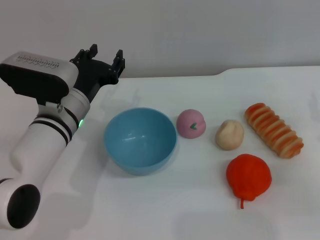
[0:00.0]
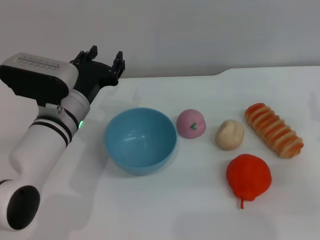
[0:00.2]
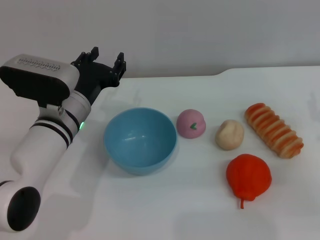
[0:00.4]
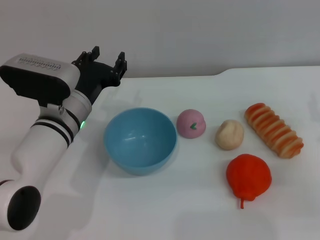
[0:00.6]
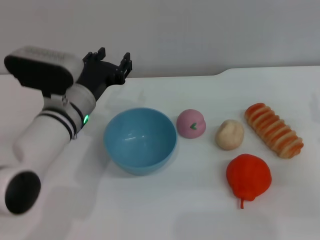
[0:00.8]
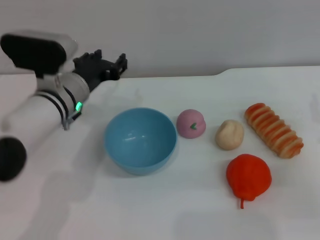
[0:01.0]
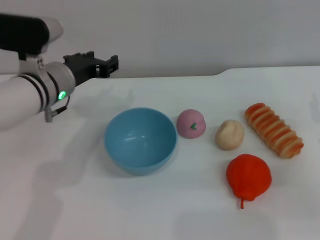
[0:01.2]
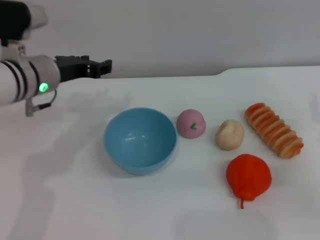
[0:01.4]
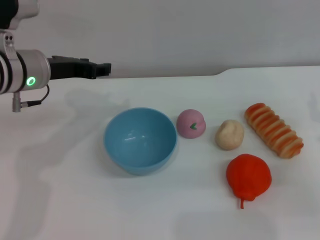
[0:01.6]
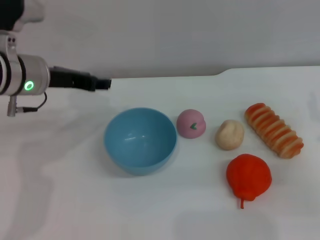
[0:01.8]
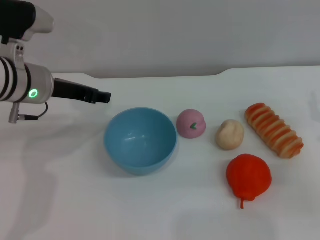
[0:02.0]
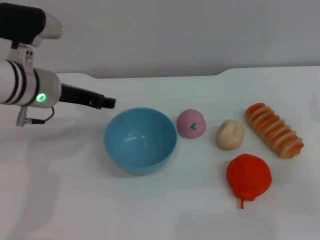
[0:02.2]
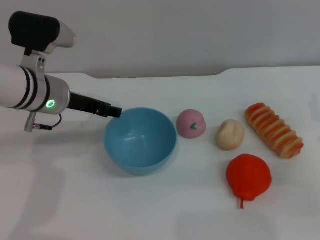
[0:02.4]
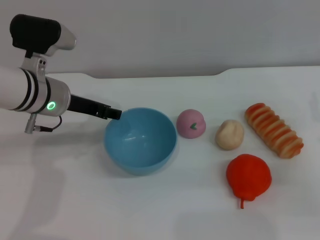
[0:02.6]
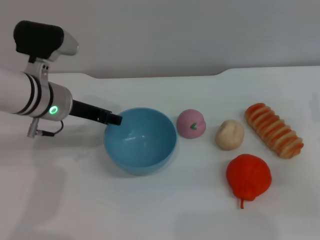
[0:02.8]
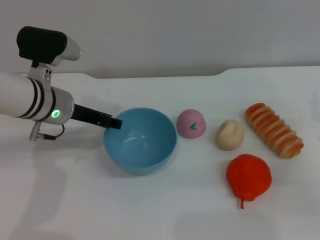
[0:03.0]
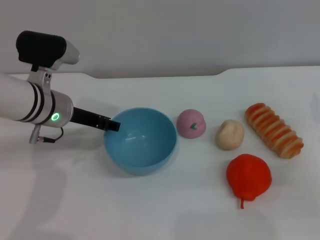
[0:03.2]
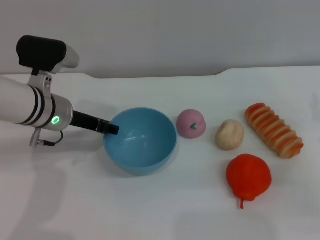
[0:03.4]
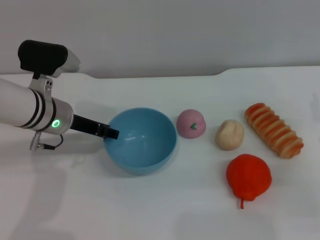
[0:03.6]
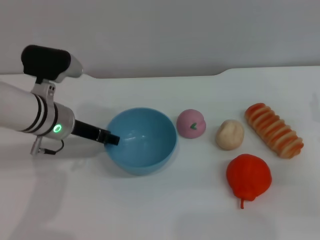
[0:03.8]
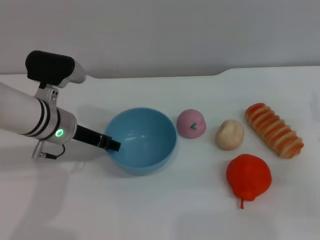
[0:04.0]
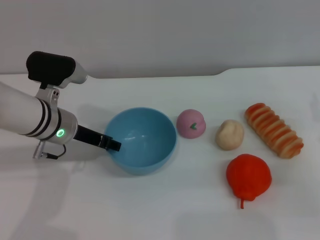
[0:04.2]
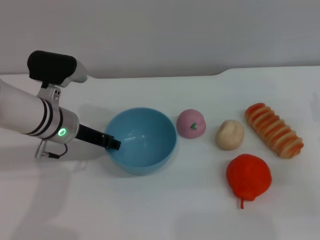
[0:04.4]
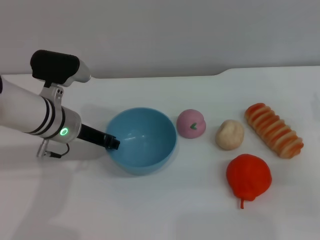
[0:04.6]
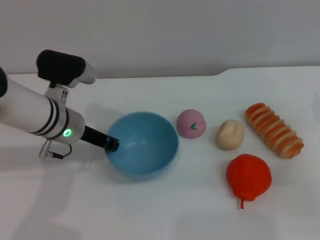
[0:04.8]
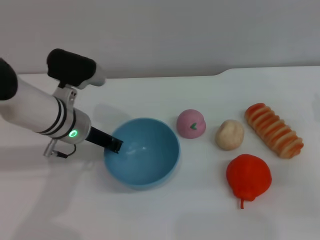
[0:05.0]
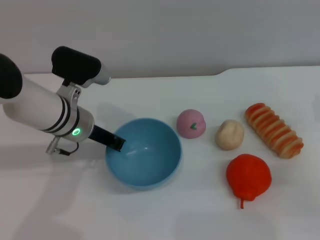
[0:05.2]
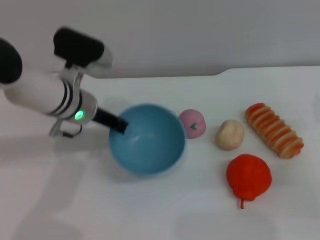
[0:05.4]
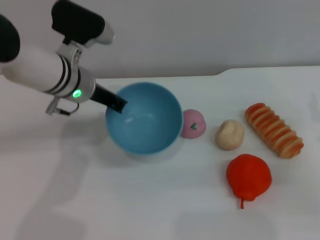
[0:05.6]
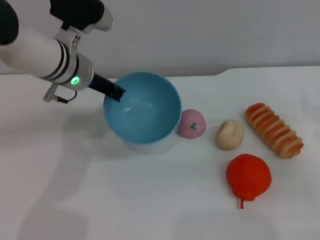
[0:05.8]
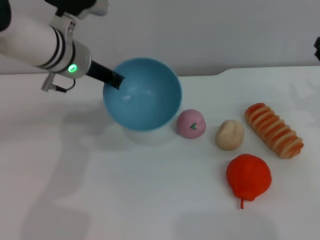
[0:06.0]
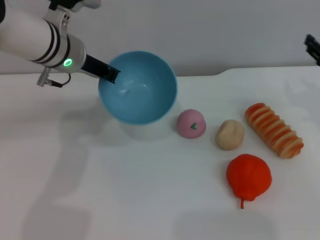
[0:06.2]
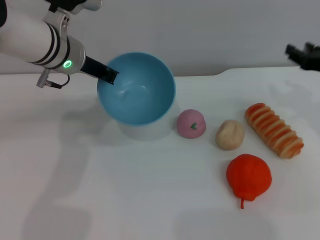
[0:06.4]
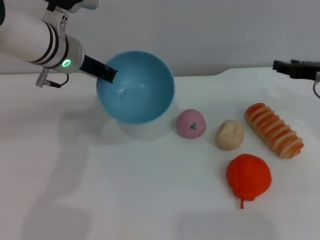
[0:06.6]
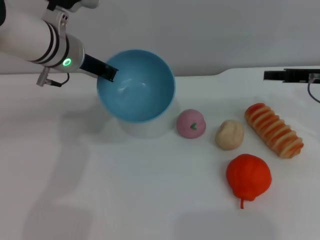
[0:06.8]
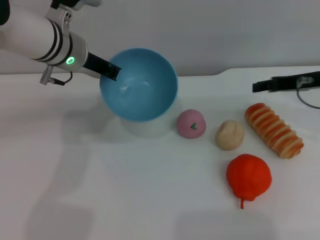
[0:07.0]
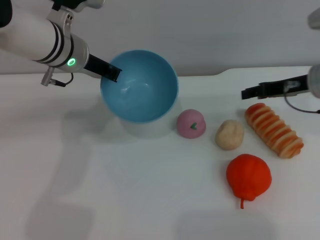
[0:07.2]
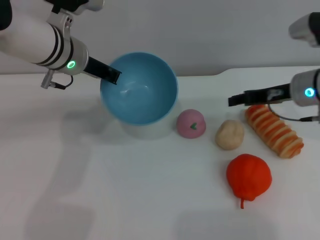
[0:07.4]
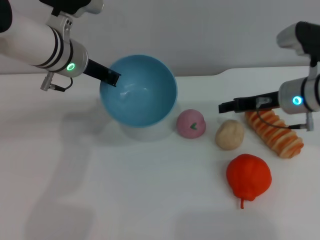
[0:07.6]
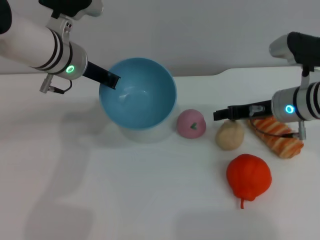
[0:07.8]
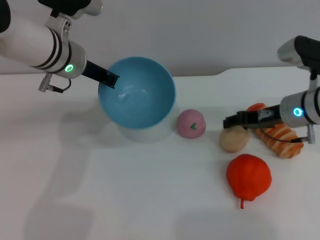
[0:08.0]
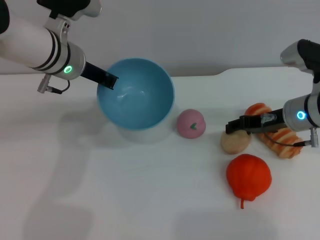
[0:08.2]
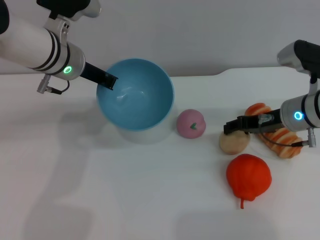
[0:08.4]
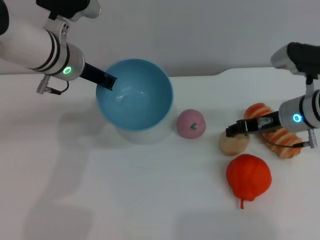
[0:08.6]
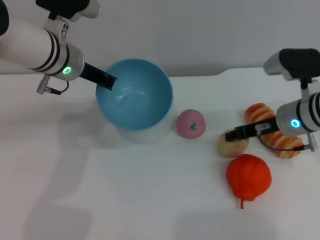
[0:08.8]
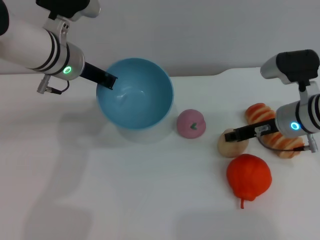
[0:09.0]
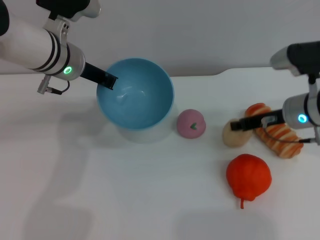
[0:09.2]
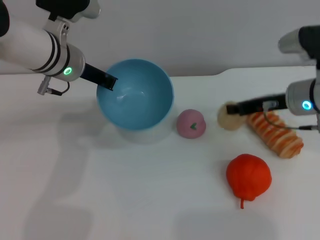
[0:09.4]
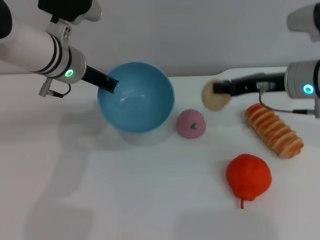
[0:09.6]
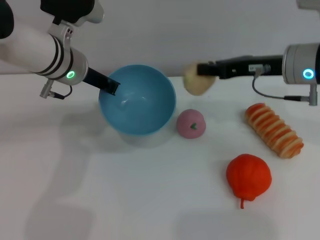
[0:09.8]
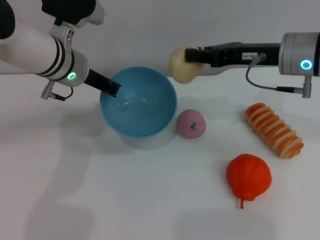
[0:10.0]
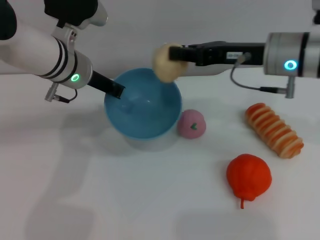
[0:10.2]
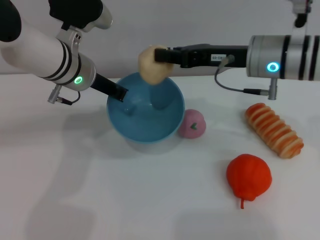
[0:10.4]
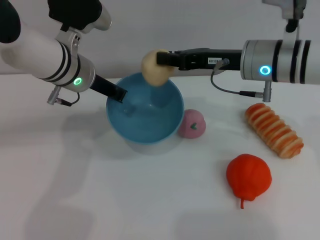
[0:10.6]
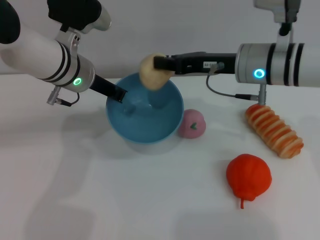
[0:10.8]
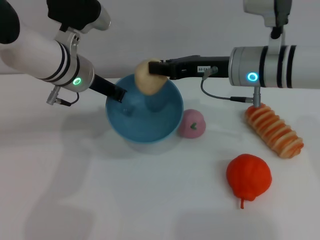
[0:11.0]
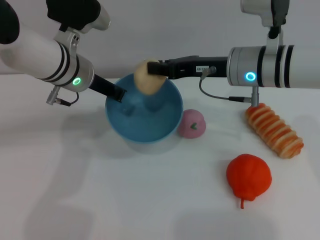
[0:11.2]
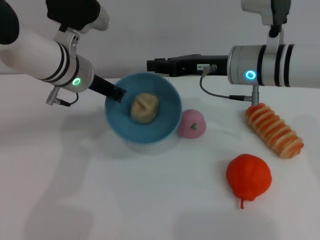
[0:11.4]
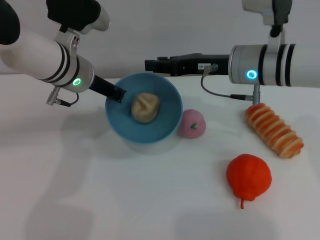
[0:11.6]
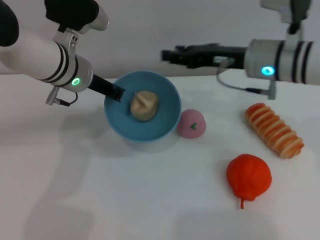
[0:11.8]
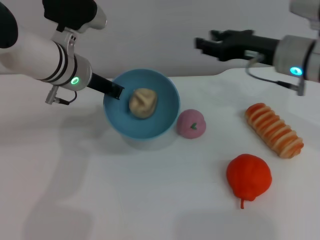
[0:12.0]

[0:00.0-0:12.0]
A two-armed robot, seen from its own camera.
Task of the whole recording: put the egg yolk pastry into the blue bowl and pour it out repeatedly.
Step, 0:00.0 to 0:06.0: Pick up the bowl with the left gripper.
Step, 0:06.2 to 0:09.6: Pick up the egg yolk pastry with the right gripper.
Step, 0:09.8 to 0:11.6: Place the egg yolk pastry into the bowl.
0:00.0 to 0:01.6: The left gripper travels upward and to the left by roughly 10 cm.
0:01.6 to 0:03.0: The left gripper ends up some 5 cm from where it was.
0:03.0 to 0:04.4: The grippers stay close to where they were, moving slightly.
0:04.4 to 0:06.0: The right gripper moves roughly 5 cm. The left gripper moves upward, some 10 cm, and closes its fingers.
0:06.0 to 0:07.6: The right gripper heads to the left and forward, covering approximately 10 cm.
0:07.6 to 0:09.0: The right gripper closes.
0:09.0 to 0:10.4: The right gripper goes approximately 10 cm upward and to the left, and closes its fingers.
0:10.4 to 0:12.0: The right gripper heads to the right, covering roughly 5 cm, and opens up.

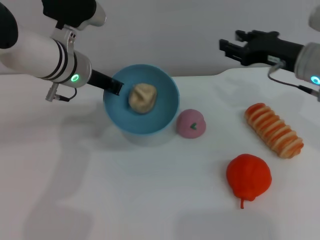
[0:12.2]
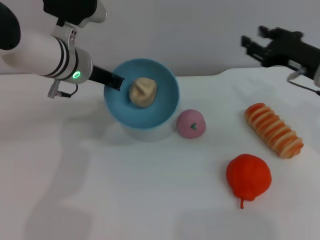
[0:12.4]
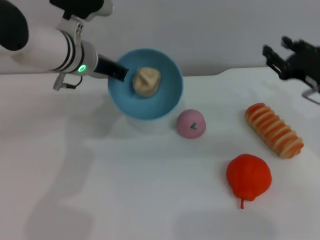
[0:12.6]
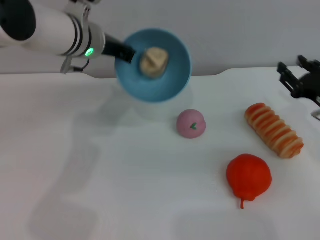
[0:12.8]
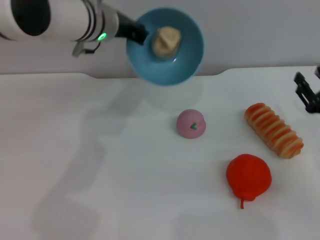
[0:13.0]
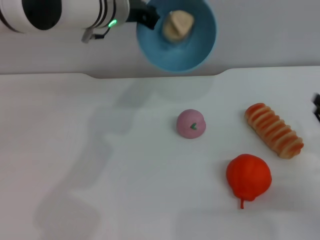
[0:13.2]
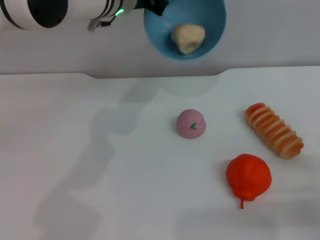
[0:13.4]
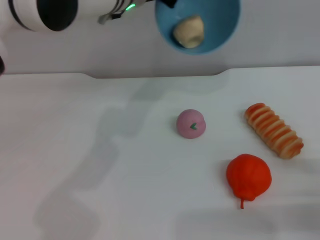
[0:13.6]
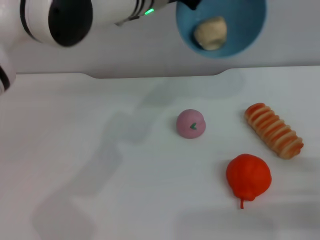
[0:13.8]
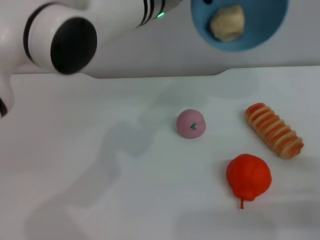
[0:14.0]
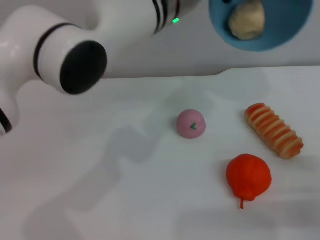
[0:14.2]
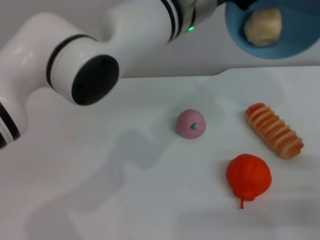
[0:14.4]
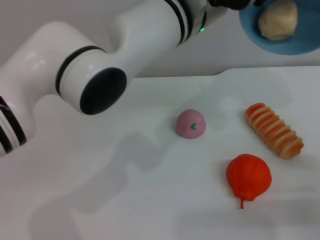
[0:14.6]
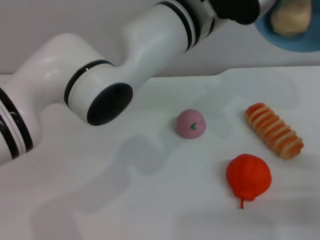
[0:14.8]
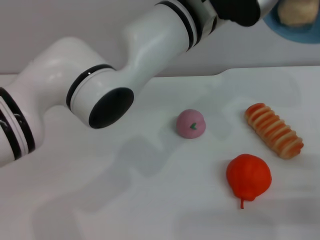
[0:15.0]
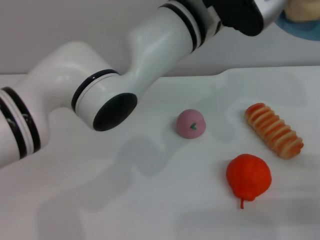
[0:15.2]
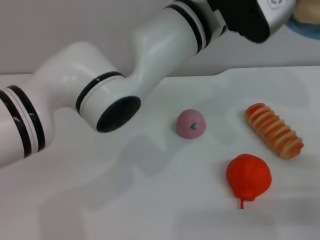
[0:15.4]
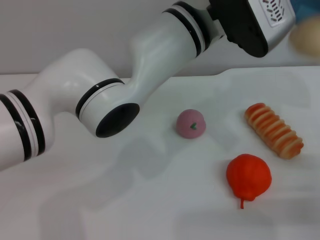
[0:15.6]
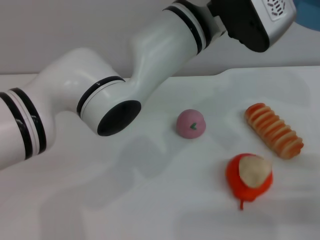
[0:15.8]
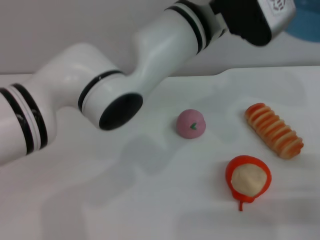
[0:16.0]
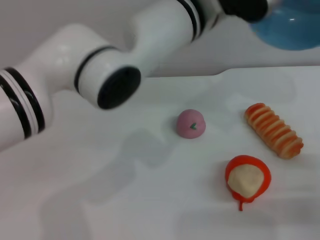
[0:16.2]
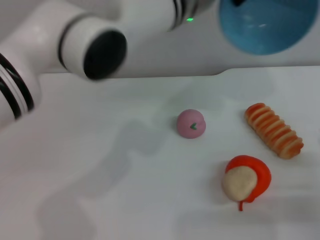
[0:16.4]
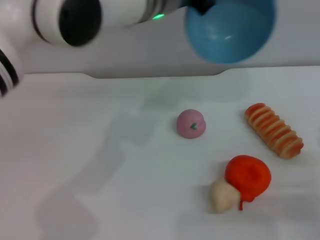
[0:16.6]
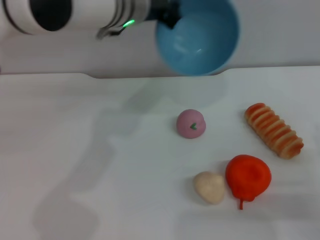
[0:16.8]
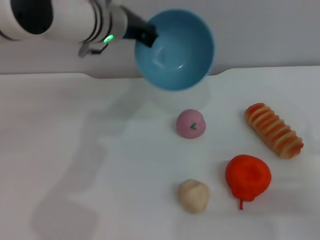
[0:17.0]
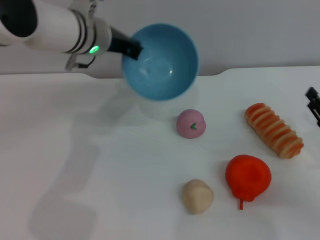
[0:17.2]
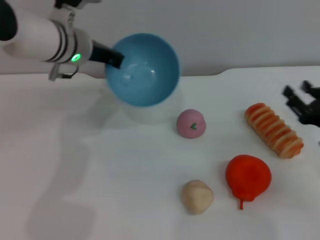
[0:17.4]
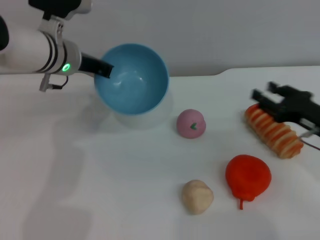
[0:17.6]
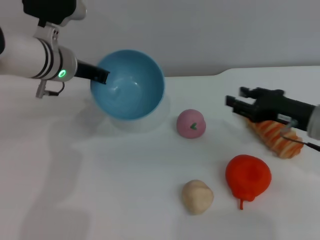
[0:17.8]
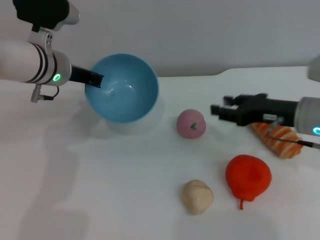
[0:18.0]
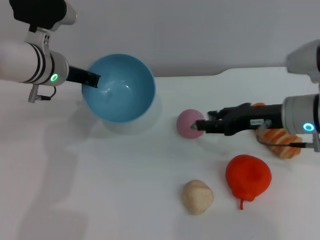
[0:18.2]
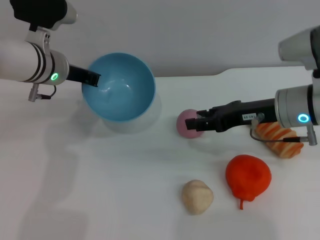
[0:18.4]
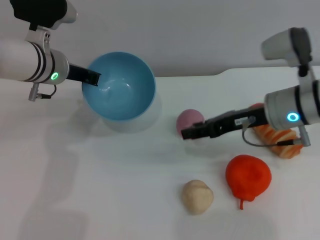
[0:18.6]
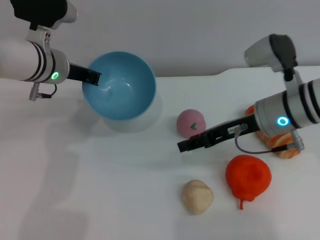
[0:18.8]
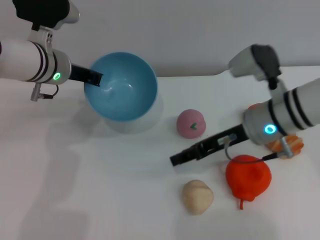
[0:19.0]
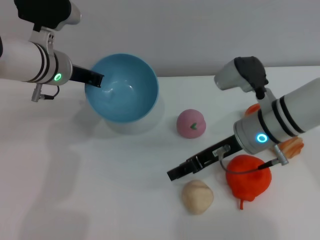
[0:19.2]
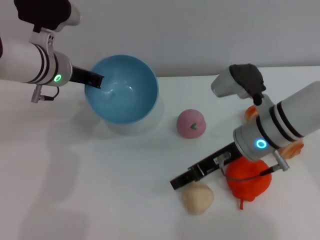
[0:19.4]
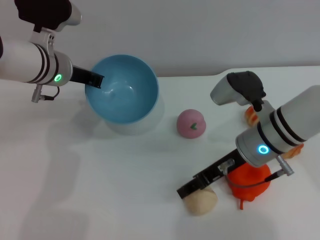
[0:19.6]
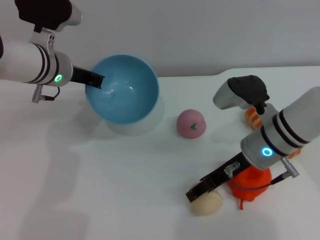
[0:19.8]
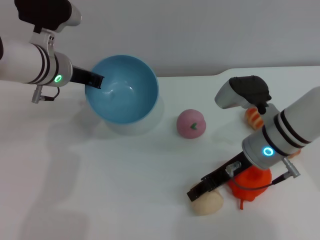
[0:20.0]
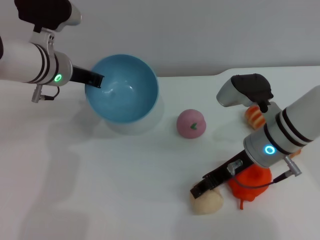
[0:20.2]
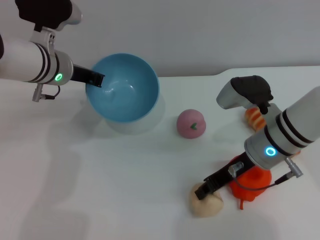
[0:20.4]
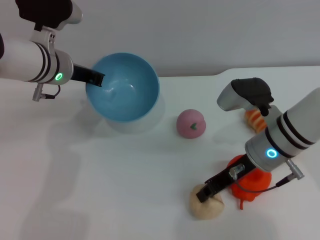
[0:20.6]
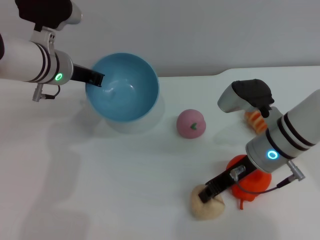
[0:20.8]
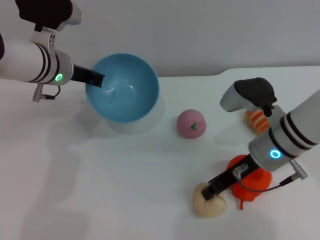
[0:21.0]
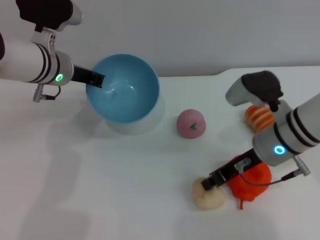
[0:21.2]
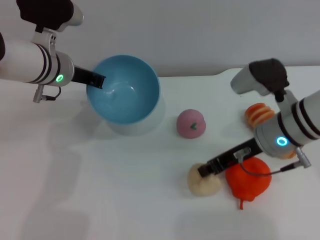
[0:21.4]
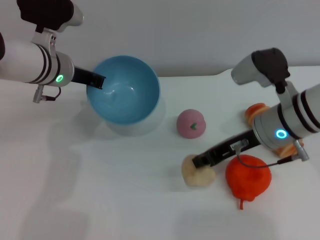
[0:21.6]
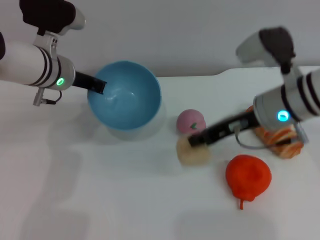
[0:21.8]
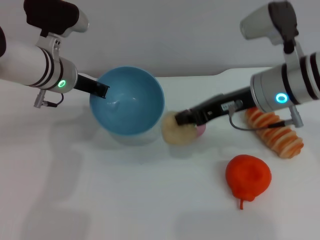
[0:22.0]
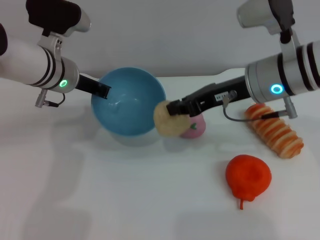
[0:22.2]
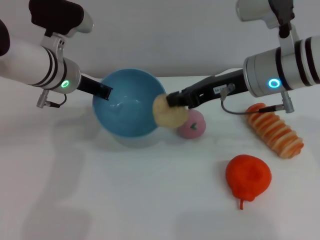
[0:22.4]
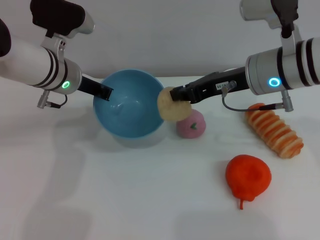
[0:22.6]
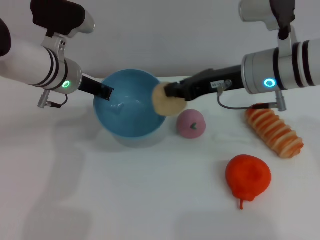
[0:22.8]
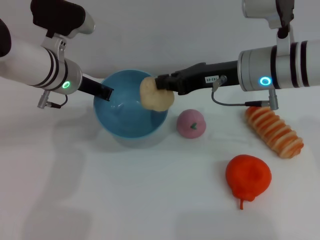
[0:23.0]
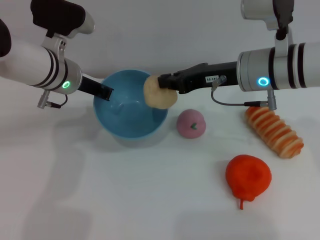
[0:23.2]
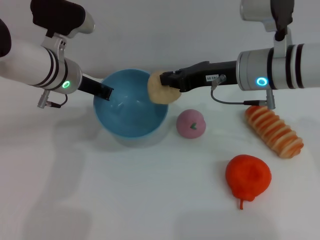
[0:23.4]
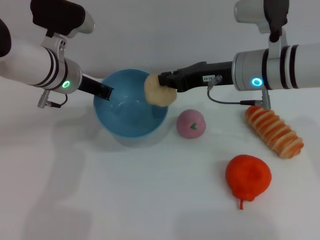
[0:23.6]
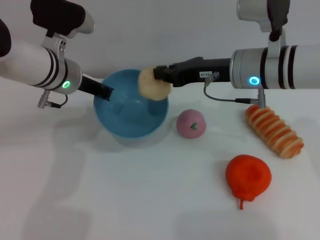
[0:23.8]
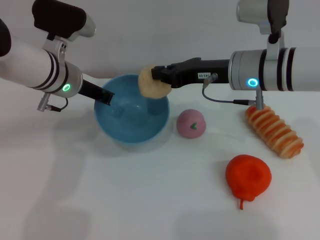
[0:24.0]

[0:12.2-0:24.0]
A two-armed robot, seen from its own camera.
Task of the whole recording: put the egg yolk pastry into the blue bowl and pour it out repeatedly.
Step, 0:12.2 to 0:17.0: Pour the egg yolk pastry out of bowl.
Step, 0:17.2 to 0:21.8: Pick up the egg yolk pastry with the right gripper.
0:12.2 to 0:13.6: The left gripper heads to the right and upward, covering about 15 cm, while the right gripper moves backward, downward and to the right, some 25 cm.
0:13.6 to 0:15.2: The left gripper travels to the right and backward by approximately 10 cm.
0:15.2 to 0:16.6: The left gripper shifts some 10 cm forward and to the left.
0:16.6 to 0:18.2: The right gripper travels to the left, forward and upward by some 20 cm, while the left gripper shifts about 20 cm to the left and downward.
0:18.2 to 0:19.6: The right gripper shifts roughly 5 cm to the left.
0:19.6 to 0:21.0: The right gripper closes up.
0:21.0 to 0:22.6: The right gripper goes some 10 cm upward.
0:22.6 to 0:24.0: There are only small adjustments of the grippers.
